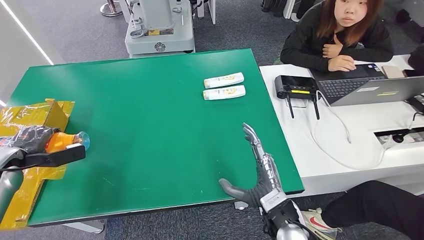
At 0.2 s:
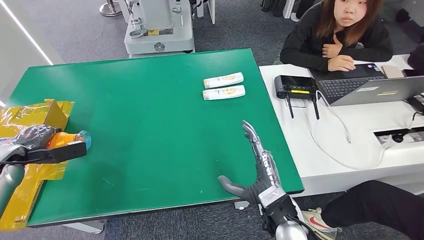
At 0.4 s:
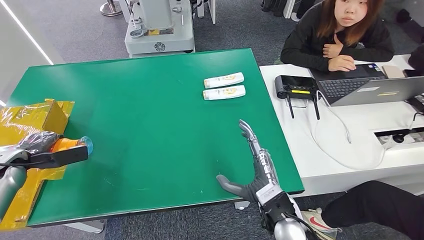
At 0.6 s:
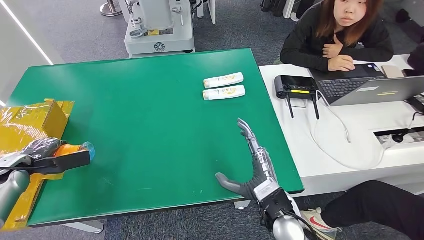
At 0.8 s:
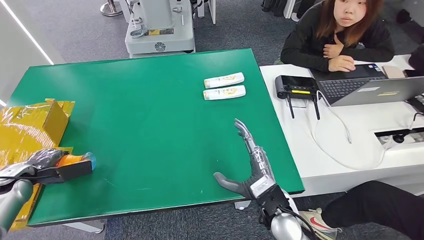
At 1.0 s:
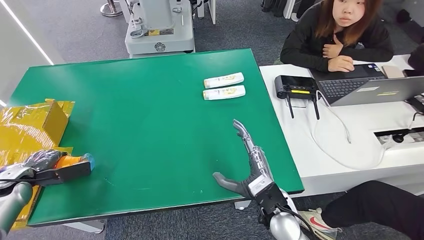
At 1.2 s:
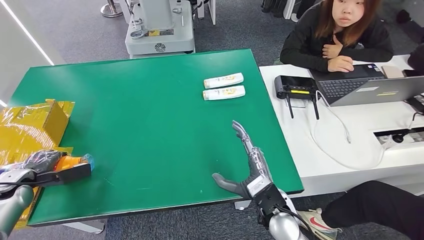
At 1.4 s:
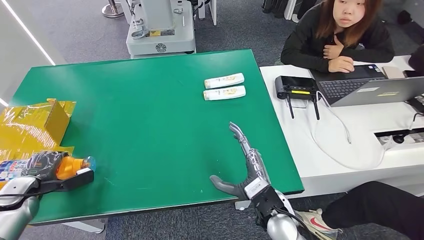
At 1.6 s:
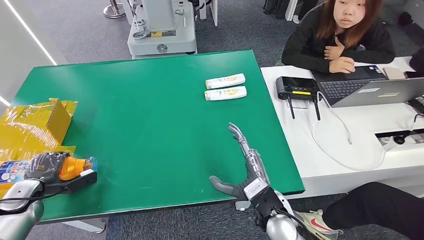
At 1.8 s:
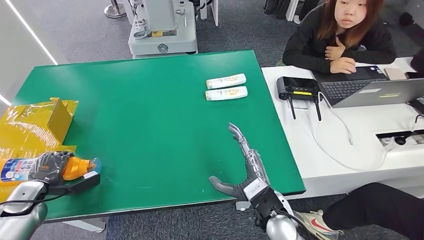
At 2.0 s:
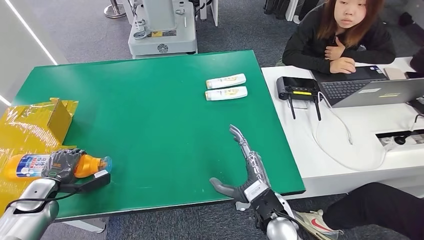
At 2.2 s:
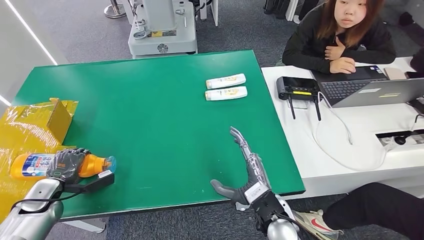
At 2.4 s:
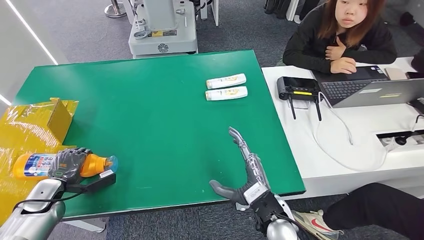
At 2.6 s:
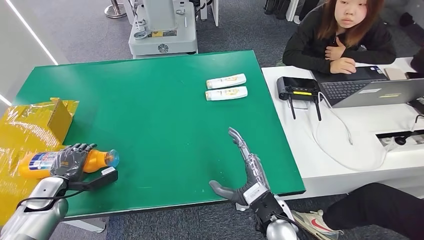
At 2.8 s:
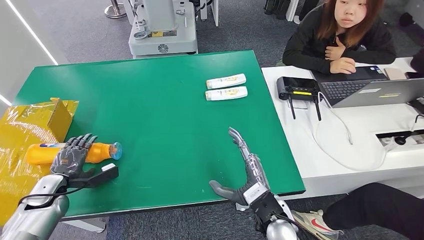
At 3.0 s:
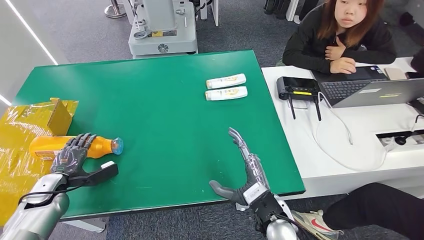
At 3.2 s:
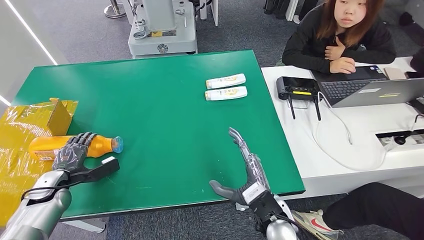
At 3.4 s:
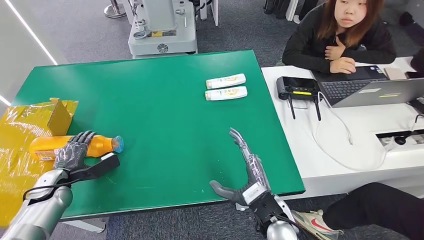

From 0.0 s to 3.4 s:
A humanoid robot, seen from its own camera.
Step, from 0.0 s to 3.4 s: Turn the bottle to the front side.
From 0.0 s to 1.6 s: The left hand is displaced downward and backward by approximately 10 cm.
From 1.6 s to 3.4 s: The left hand is displaced to the right by roughly 5 cm.

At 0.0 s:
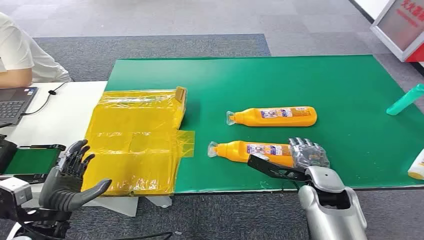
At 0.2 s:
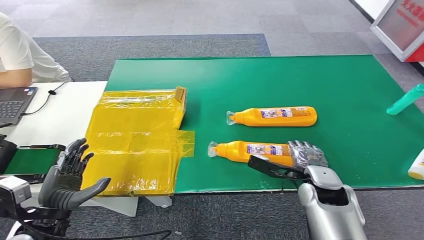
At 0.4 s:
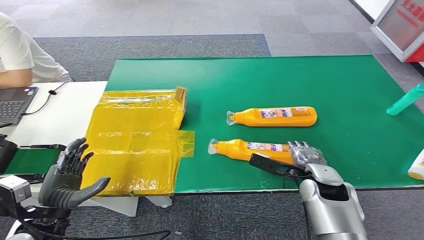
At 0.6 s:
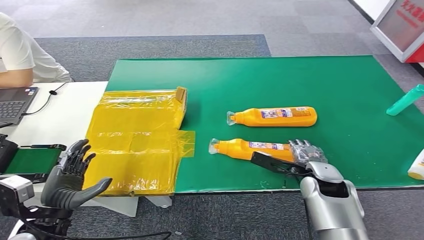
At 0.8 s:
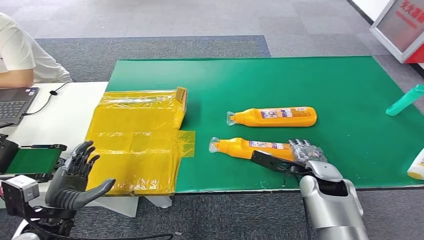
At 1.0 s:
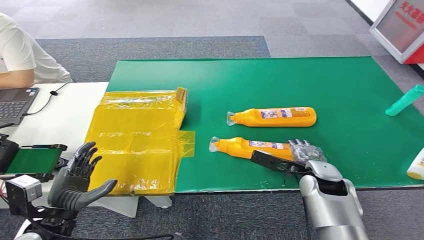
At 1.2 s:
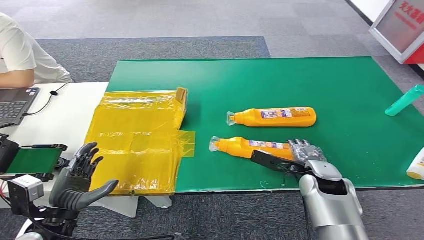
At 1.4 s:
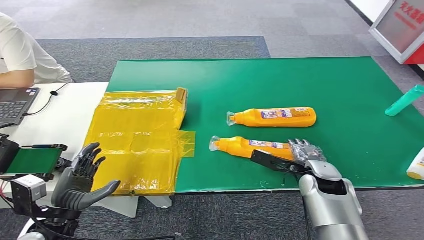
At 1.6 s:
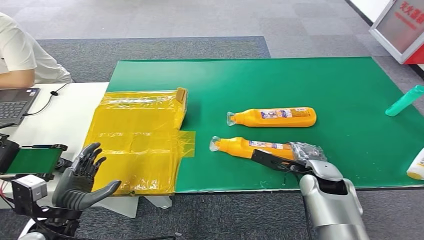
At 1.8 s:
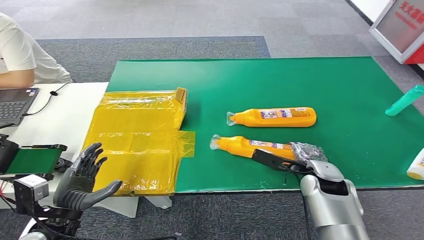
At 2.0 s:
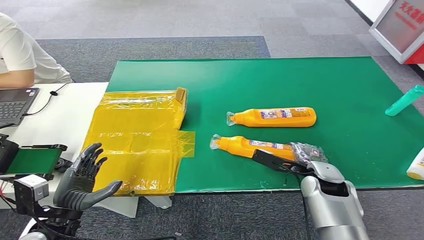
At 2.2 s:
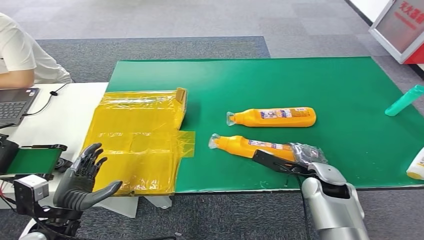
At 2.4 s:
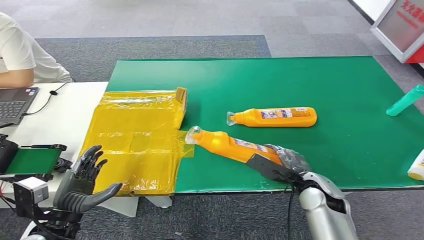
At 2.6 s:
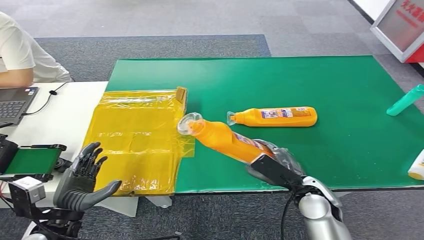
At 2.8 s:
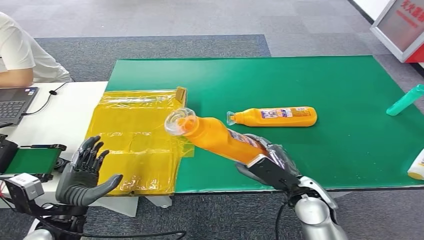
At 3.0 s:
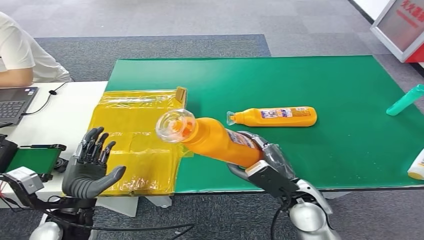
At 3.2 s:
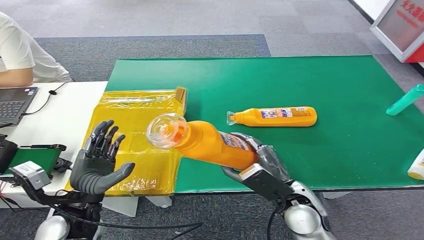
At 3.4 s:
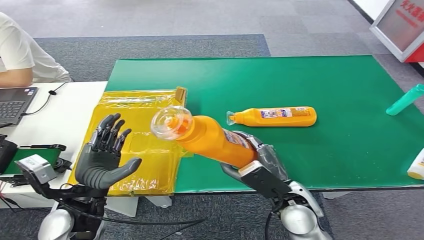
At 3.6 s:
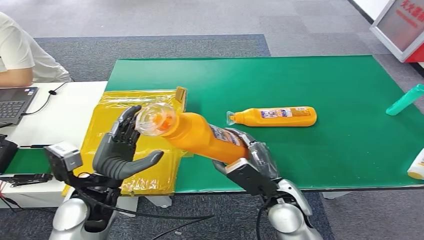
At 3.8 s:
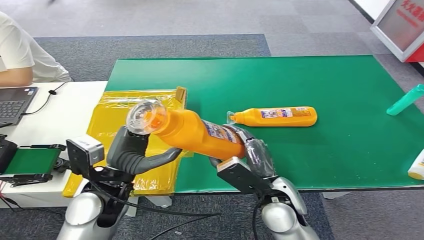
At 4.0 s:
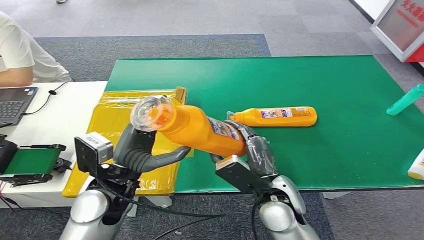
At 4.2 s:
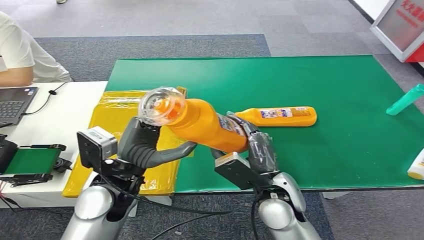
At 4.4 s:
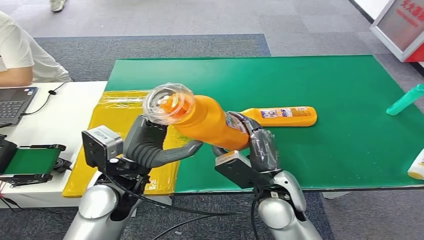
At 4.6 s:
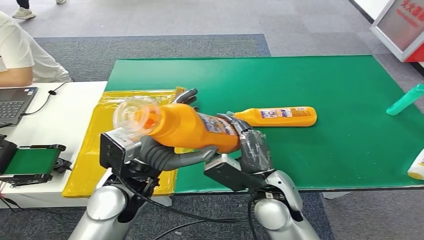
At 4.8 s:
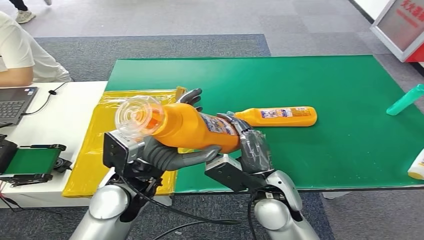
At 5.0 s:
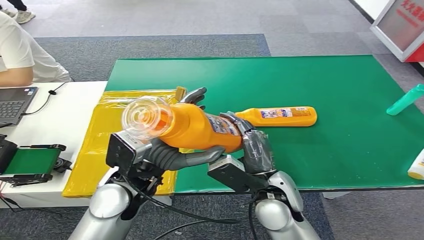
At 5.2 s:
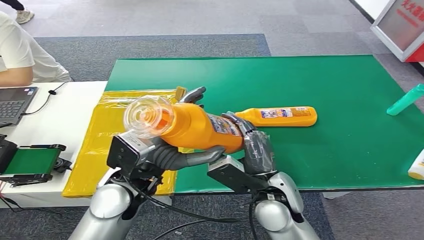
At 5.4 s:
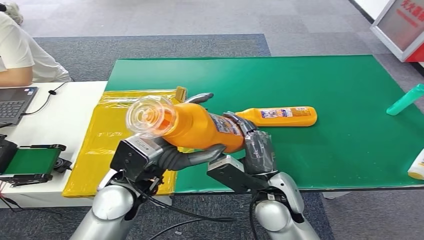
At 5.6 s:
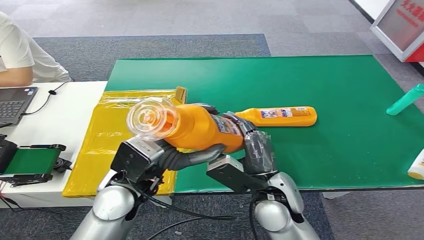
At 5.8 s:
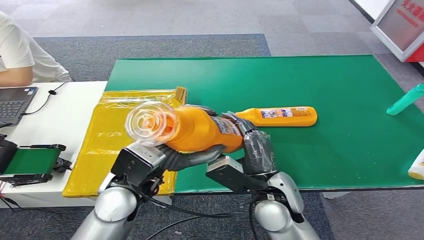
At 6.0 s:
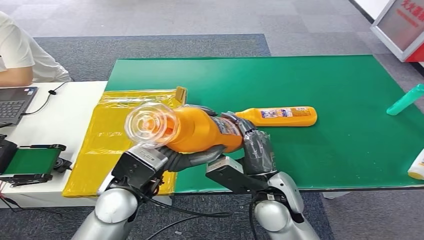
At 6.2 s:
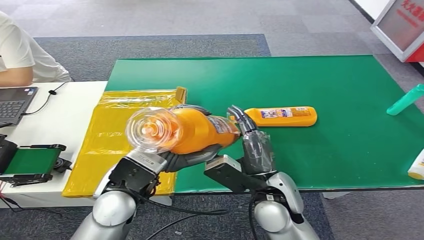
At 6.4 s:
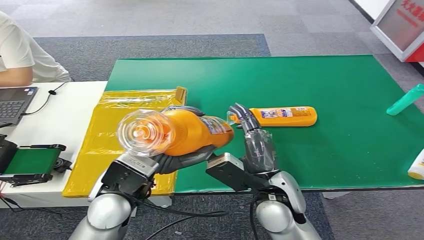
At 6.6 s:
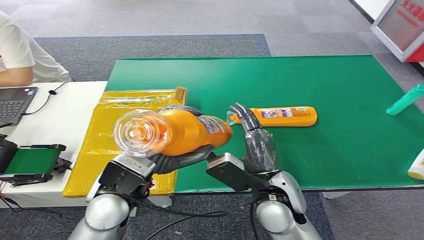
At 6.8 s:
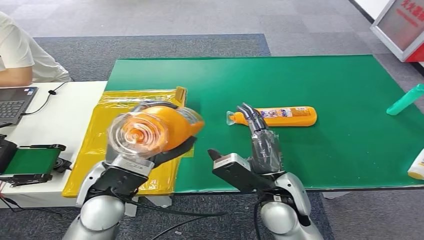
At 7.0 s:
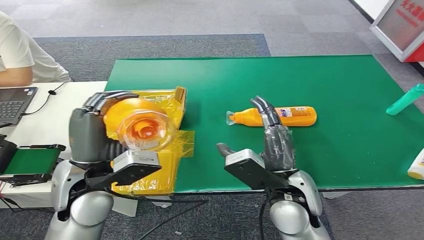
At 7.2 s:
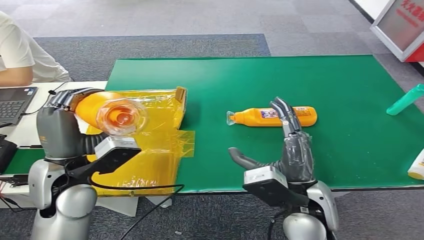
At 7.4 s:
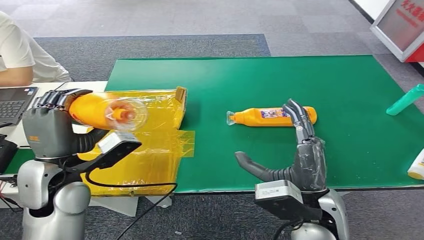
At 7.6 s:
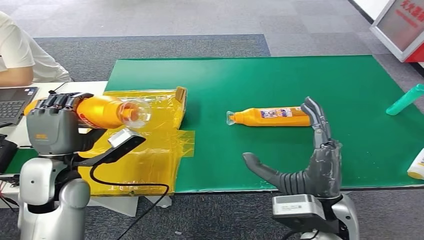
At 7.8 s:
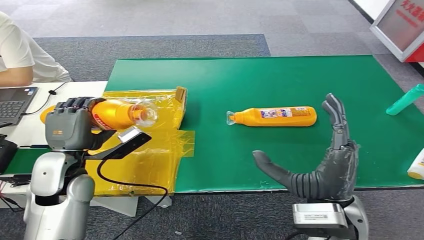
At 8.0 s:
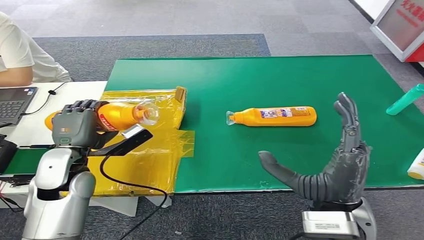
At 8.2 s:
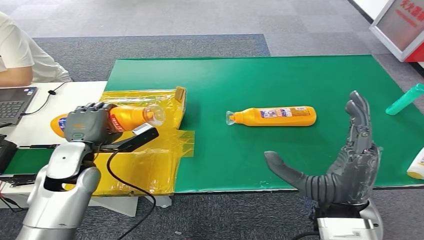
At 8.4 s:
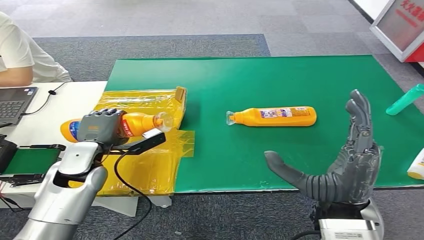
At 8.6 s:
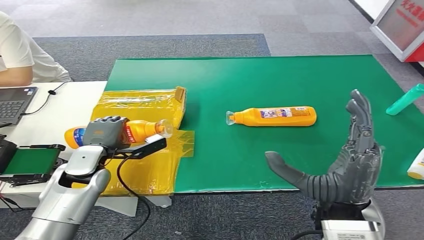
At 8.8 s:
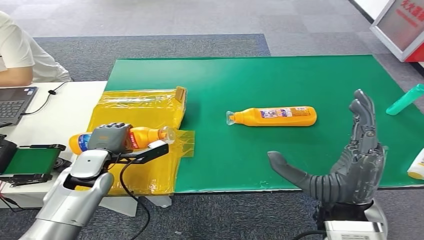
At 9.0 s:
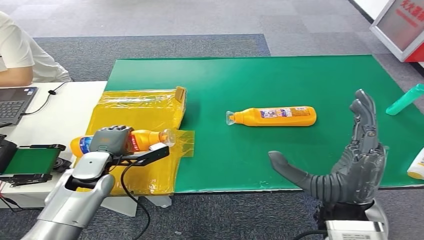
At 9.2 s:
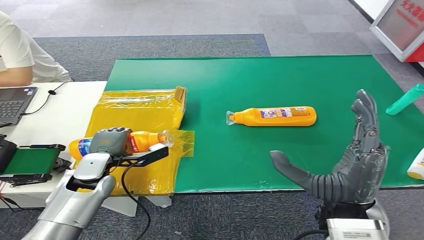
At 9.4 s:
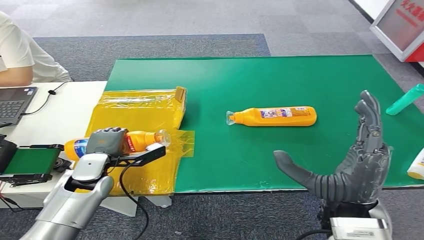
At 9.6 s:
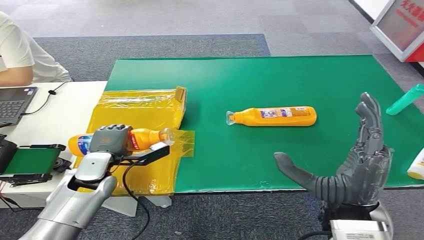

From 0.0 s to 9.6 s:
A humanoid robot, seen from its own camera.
Step, from 0.0 s to 2.6 s: Pick up the bottle from the table.
From 8.0 s to 9.6 s: The left hand heads downward, covering about 10 cm.

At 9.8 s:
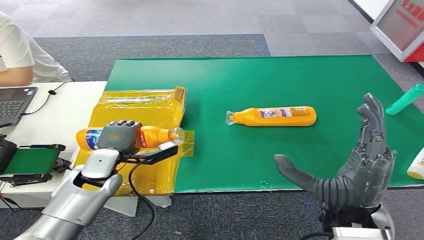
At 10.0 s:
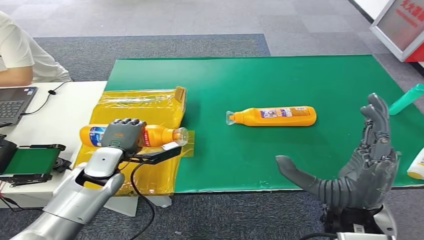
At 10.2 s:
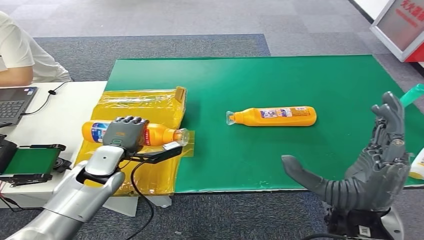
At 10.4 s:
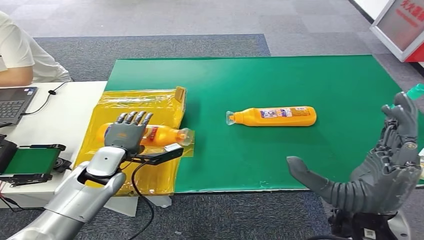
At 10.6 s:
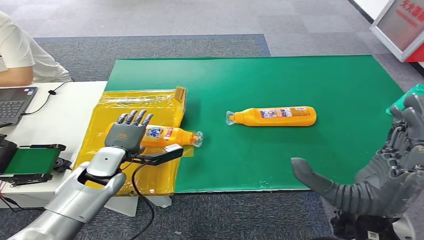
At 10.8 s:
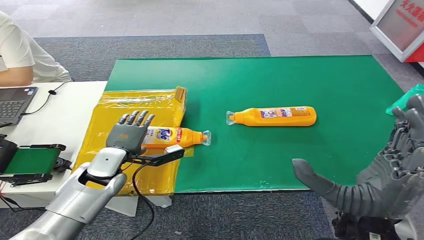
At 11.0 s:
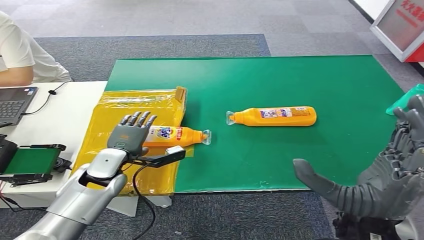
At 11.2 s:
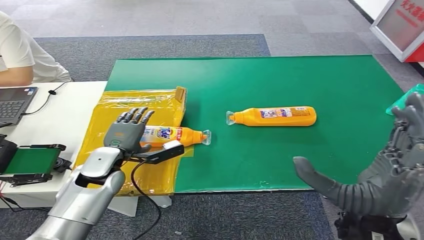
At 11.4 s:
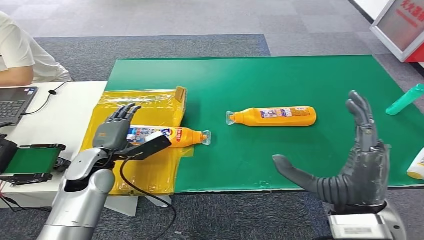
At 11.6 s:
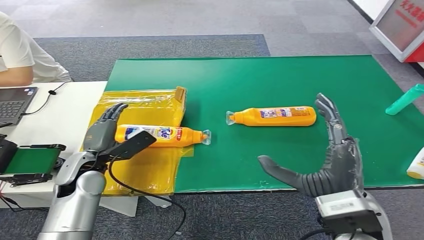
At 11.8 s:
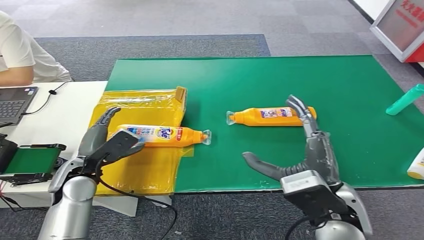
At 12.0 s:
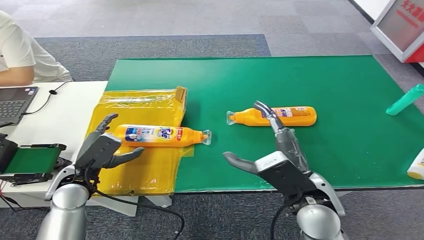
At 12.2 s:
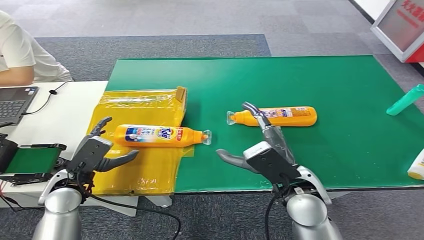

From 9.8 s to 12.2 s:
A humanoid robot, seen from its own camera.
Step, from 9.8 s to 12.2 s: Turn the bottle to the front side.
From 9.8 s to 11.0 s: The hands make only small movements.
From 11.0 s to 12.2 s: The left hand is displaced backward and to the left by approximately 10 cm. The right hand is displaced forward, downward and to the left by approximately 10 cm.
